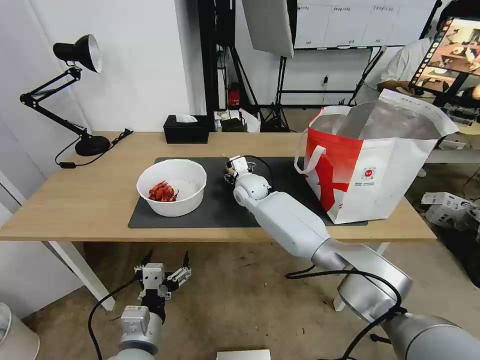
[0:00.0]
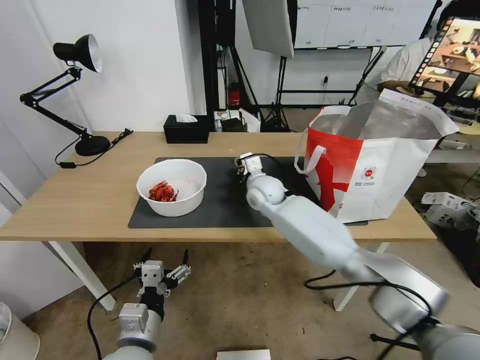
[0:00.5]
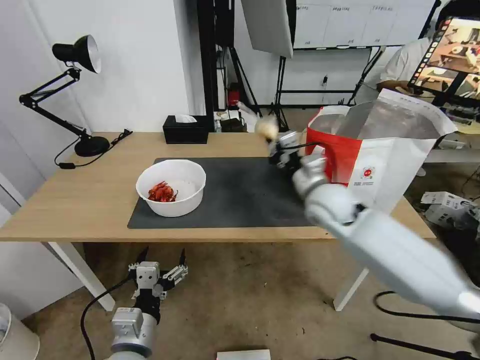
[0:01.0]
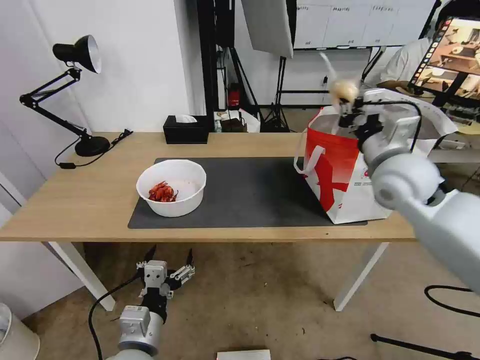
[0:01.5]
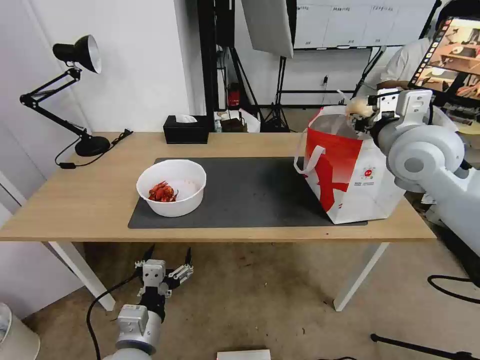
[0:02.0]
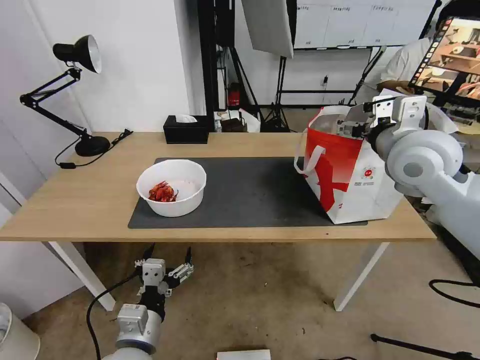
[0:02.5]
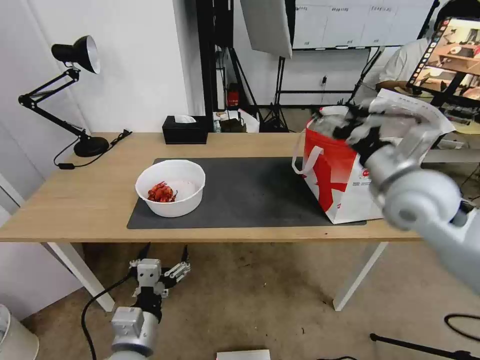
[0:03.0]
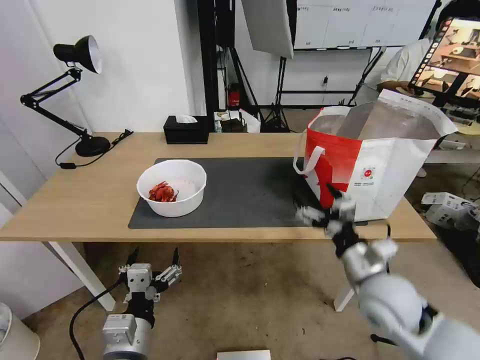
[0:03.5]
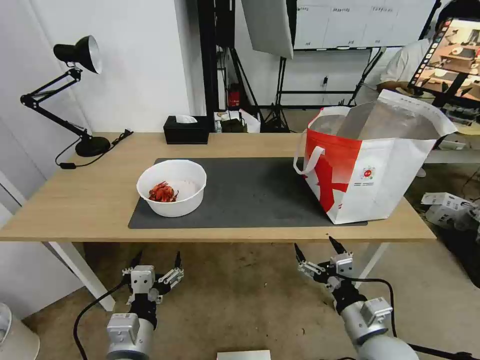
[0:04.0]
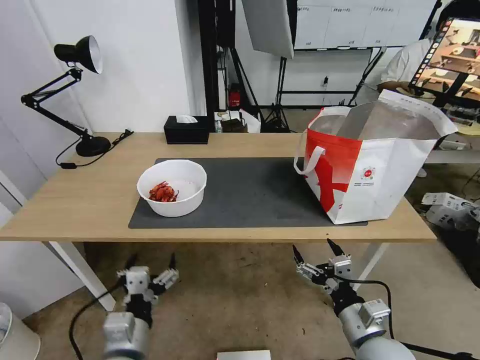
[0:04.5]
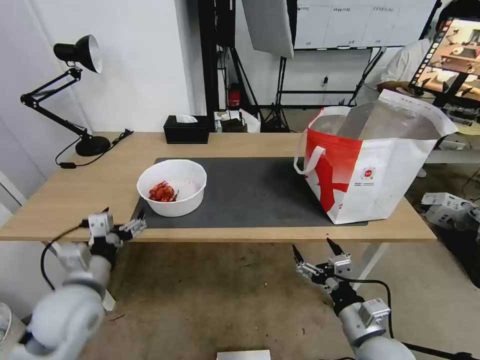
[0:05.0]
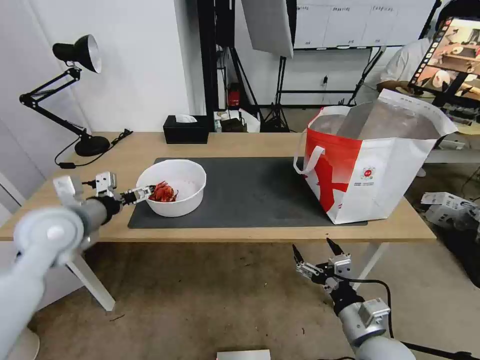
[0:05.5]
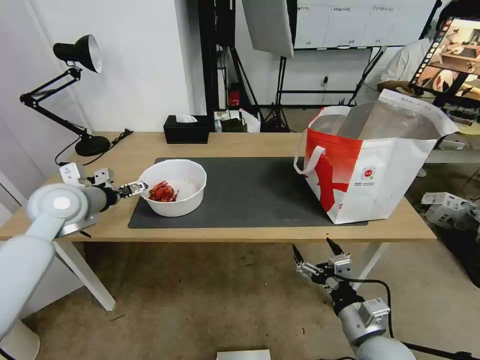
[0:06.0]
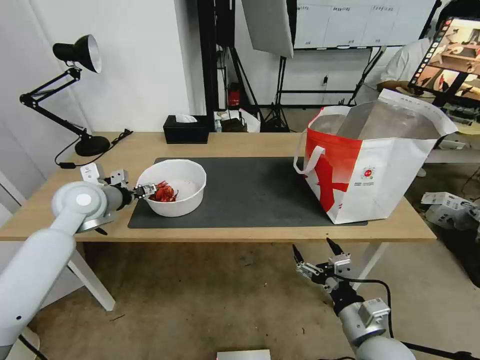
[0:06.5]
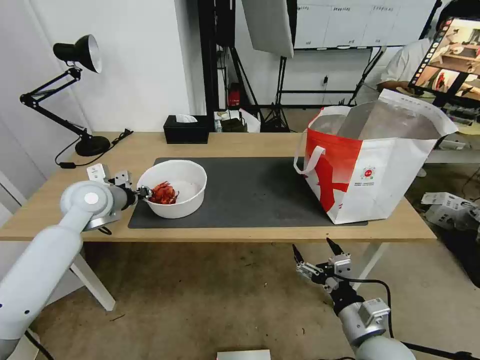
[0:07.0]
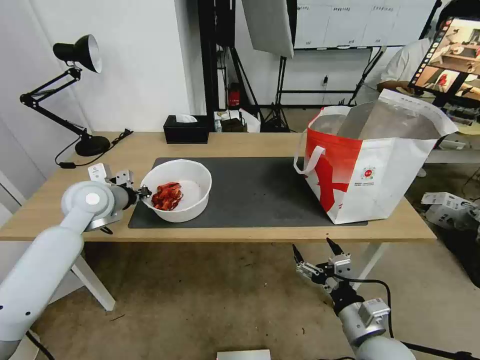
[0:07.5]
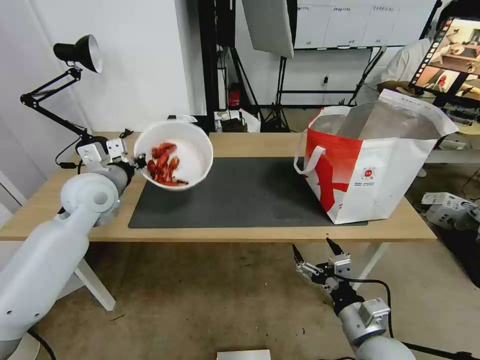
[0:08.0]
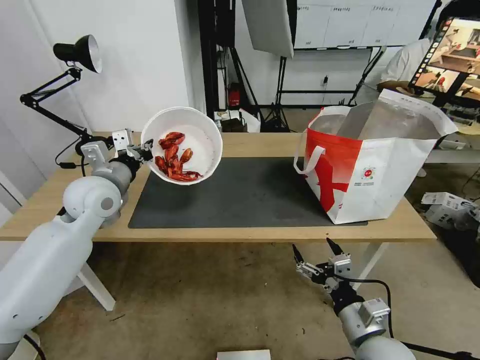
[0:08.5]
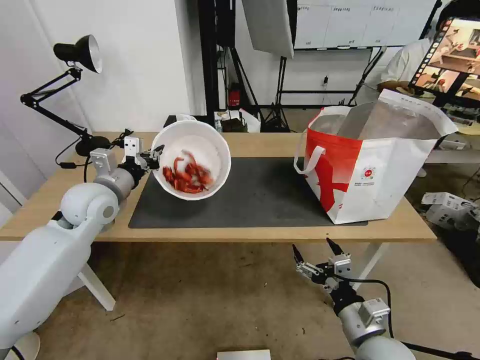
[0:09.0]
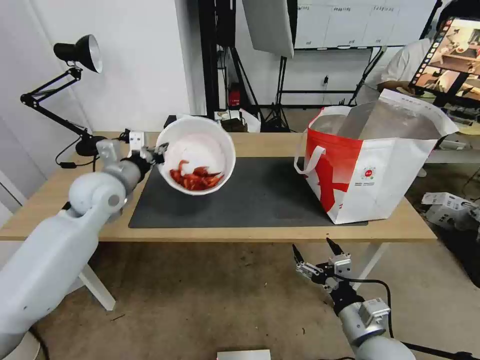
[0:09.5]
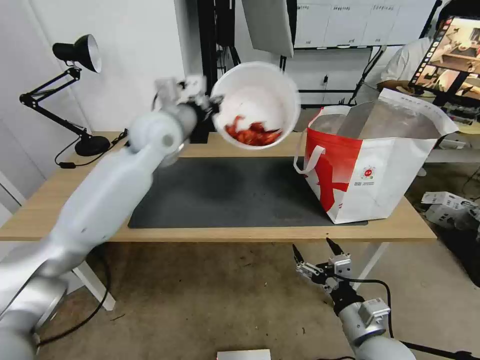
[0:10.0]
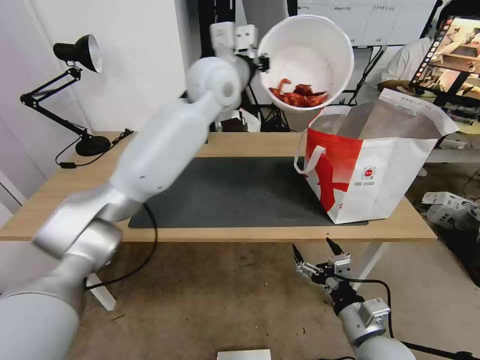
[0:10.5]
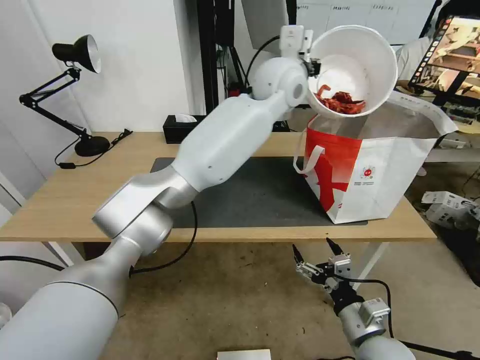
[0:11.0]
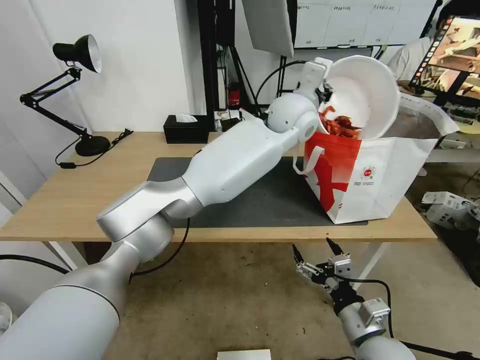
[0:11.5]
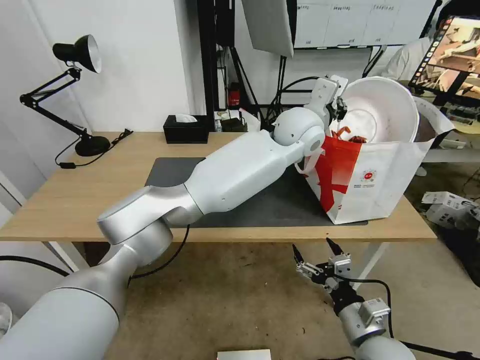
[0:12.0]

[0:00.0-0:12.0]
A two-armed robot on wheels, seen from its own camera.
Task of the whole recording: Pick up the trash from the table and place it into the takeout bag.
0:00.0 to 0:02.0: The right gripper is displaced to the right, upward and backward by roughly 40 cm.
0:02.0 to 0:04.0: The right gripper shifts roughly 40 cm downward and backward, and opens its fingers.
0:04.0 to 0:06.0: The left gripper moves forward, to the left and upward, about 35 cm.
0:06.0 to 0:08.0: The left gripper travels to the right by approximately 5 cm, and closes its fingers.
0:08.0 to 0:10.0: The left gripper goes some 20 cm to the right, upward and forward.
0:10.0 to 0:12.0: The left gripper is displaced to the right by approximately 30 cm.

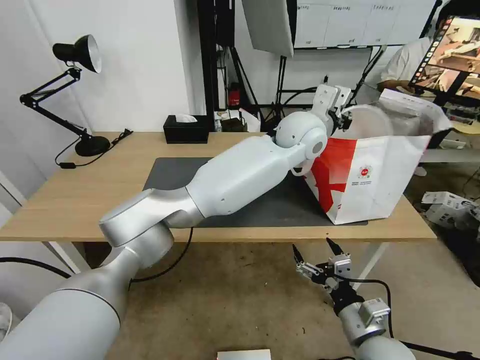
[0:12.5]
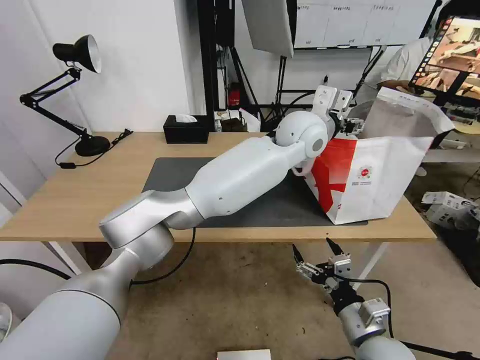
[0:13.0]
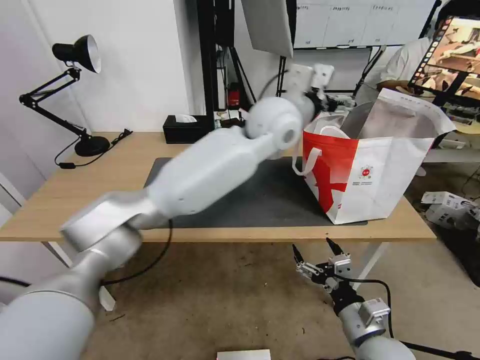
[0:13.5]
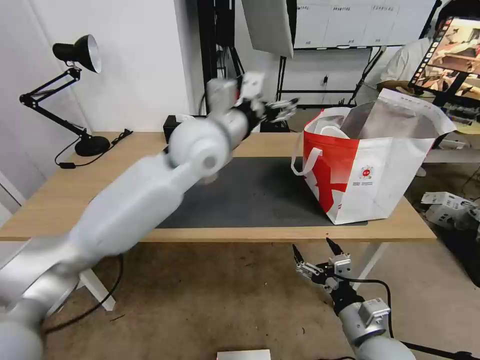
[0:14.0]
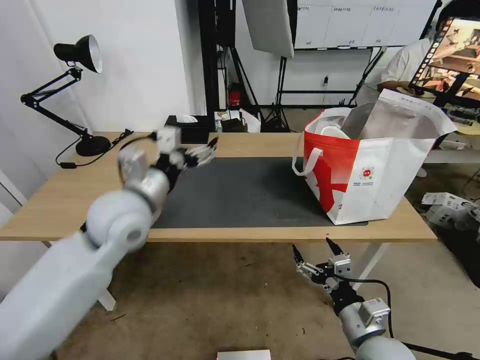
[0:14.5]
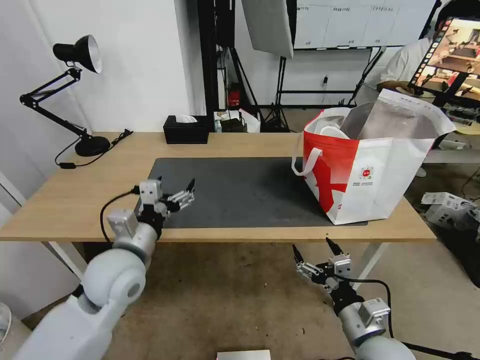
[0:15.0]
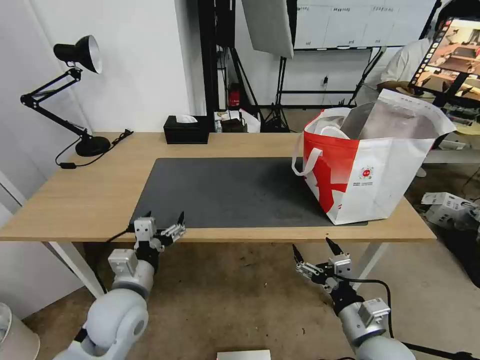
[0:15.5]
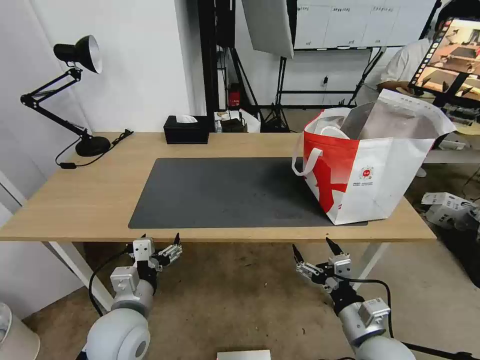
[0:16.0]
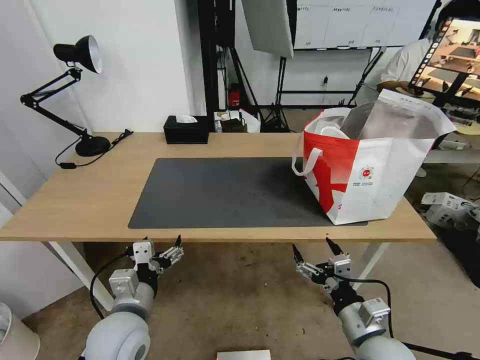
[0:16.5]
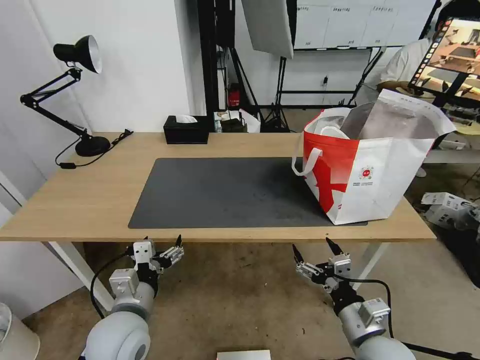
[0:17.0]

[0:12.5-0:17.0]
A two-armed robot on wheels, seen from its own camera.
Task of the whole recording: Pick up the trash from the table and place it into the takeout bag.
0:12.5 to 0:14.5: The left gripper is displaced to the left and backward by about 35 cm, and opens up.
0:14.5 to 0:17.0: The left gripper shifts some 20 cm downward and backward.
